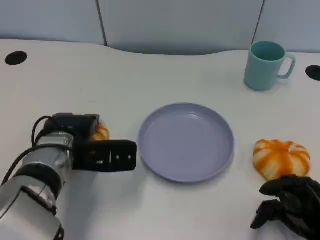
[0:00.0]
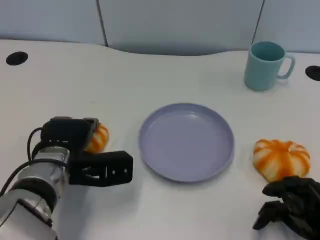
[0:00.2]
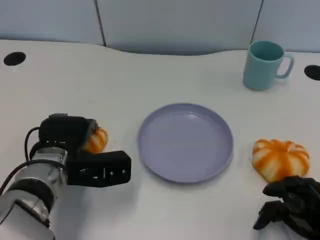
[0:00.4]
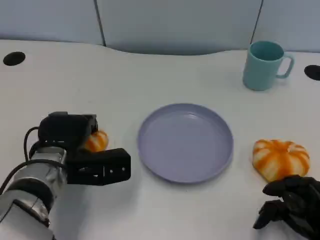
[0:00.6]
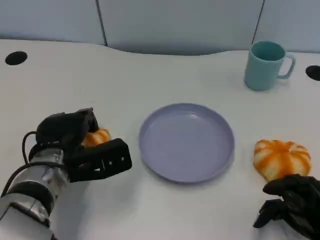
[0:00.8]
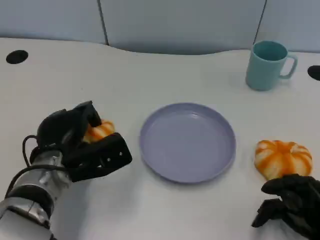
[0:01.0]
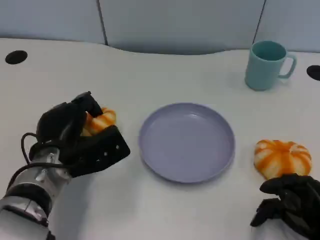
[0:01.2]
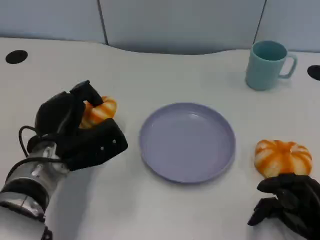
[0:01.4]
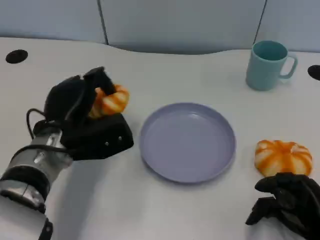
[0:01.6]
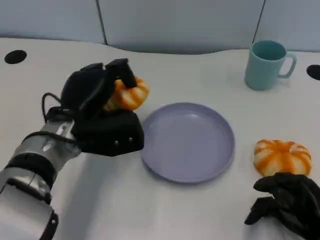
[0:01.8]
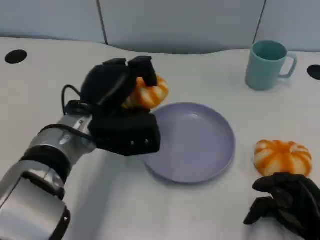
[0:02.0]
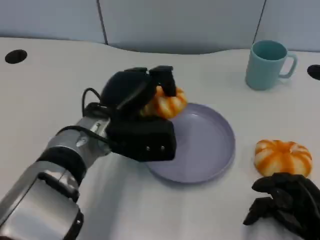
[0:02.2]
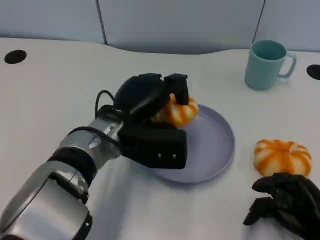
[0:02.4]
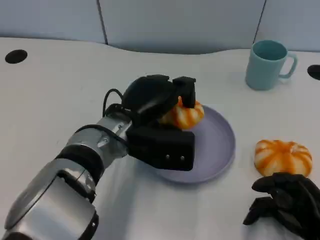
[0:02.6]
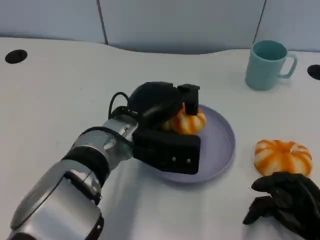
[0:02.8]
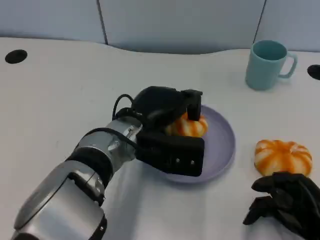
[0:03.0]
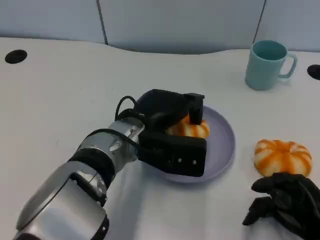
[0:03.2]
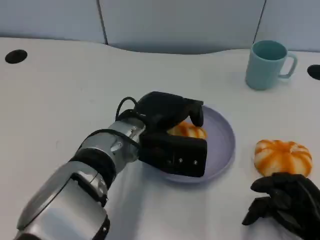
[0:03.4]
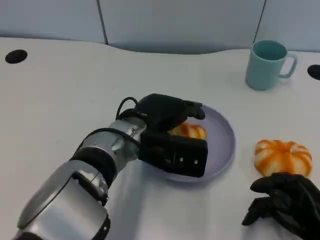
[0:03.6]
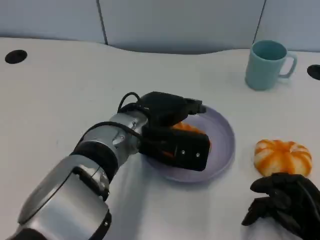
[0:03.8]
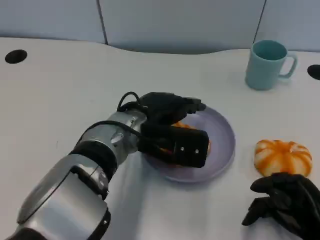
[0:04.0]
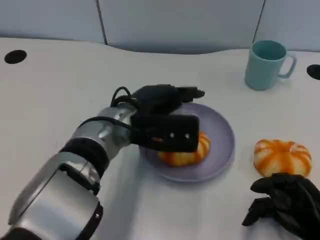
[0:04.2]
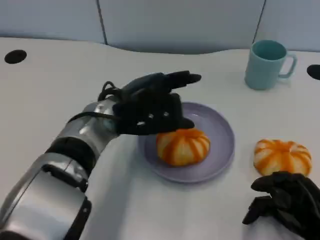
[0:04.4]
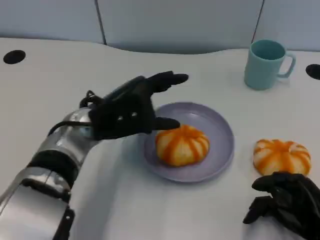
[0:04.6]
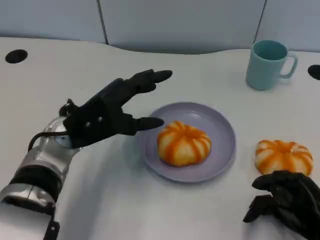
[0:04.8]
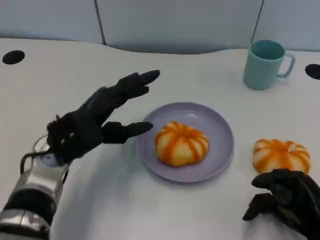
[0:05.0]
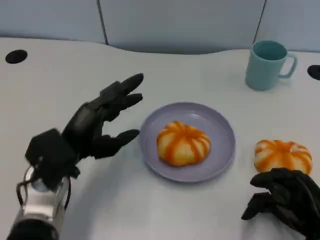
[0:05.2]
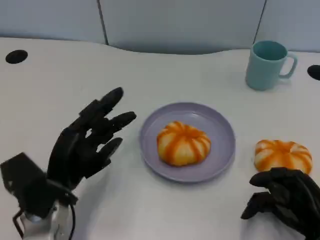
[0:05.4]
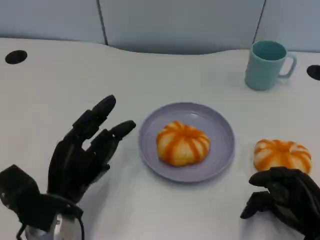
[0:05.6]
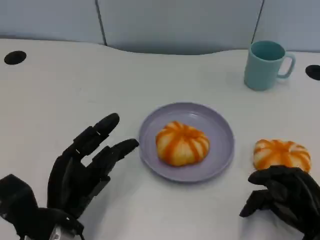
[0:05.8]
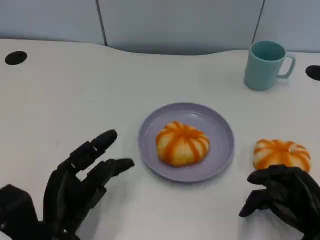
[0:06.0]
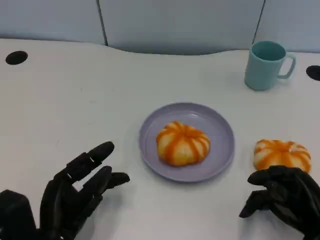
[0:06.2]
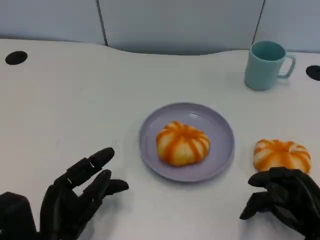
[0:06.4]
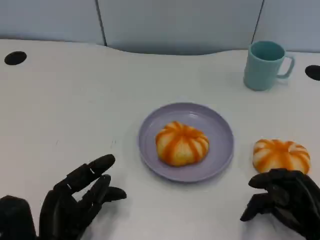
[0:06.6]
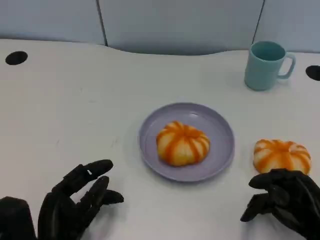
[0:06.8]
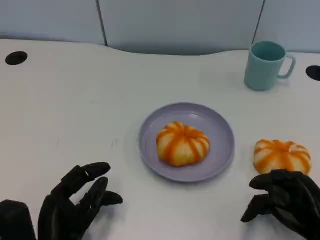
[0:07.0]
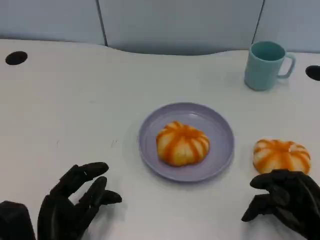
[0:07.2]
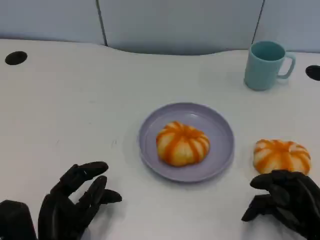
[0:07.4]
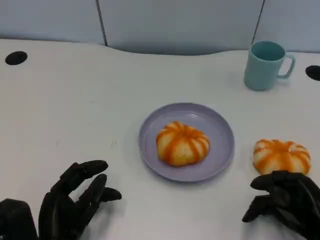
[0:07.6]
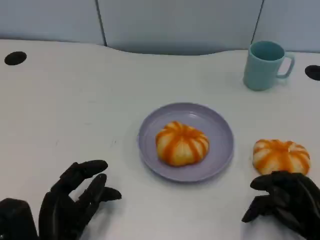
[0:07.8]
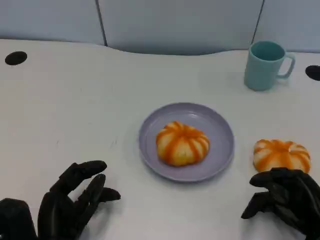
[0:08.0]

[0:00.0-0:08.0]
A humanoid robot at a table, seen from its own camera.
Task of the whole recording: Grasp the bread from the table and place it into the plate.
0:01.6 to 0:03.2: The left hand heads to the right, covering roughly 10 cm.
0:03.2 to 0:04.8: The left hand travels to the left by roughly 10 cm.
0:04.8 to 0:06.4: The left hand travels backward and downward by approximately 15 cm.
0:06.4 to 0:08.0: The two hands keep their place.

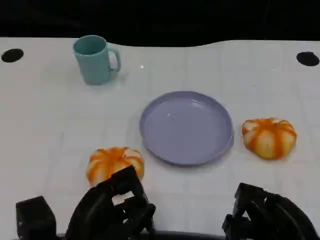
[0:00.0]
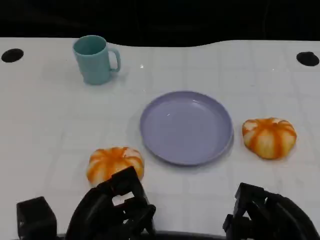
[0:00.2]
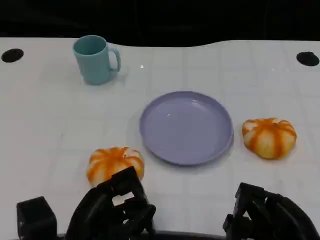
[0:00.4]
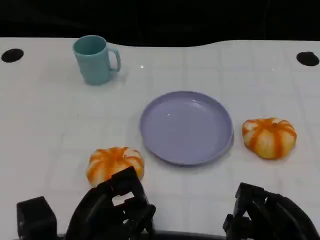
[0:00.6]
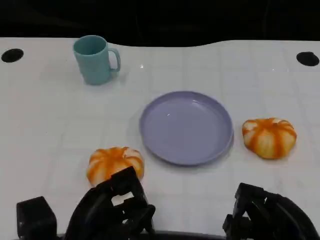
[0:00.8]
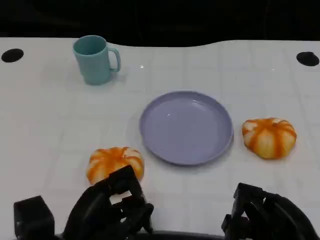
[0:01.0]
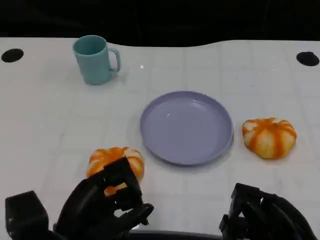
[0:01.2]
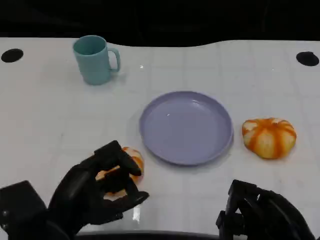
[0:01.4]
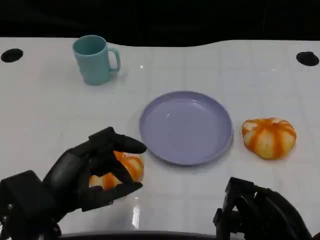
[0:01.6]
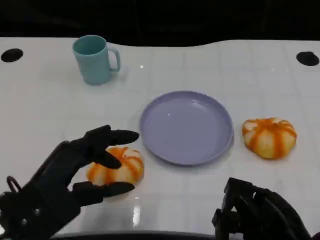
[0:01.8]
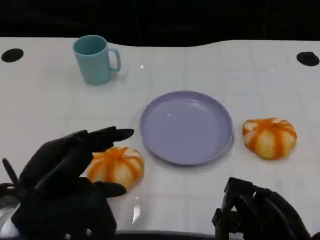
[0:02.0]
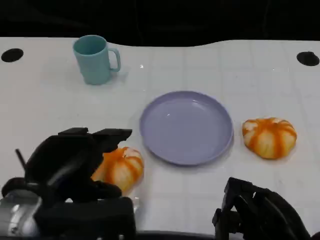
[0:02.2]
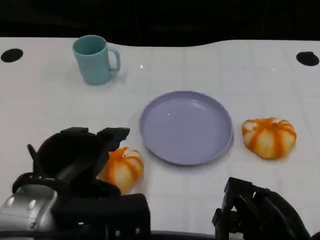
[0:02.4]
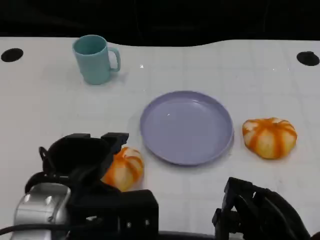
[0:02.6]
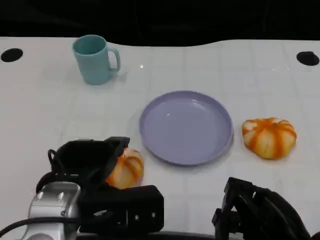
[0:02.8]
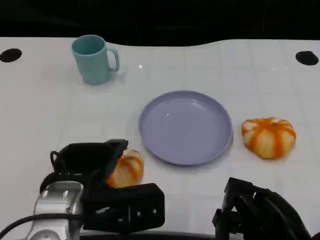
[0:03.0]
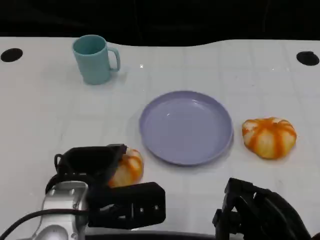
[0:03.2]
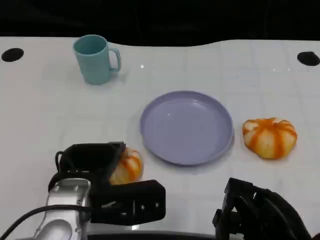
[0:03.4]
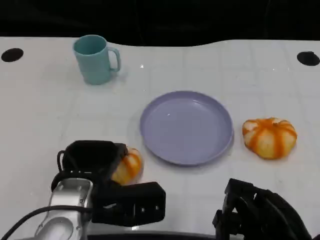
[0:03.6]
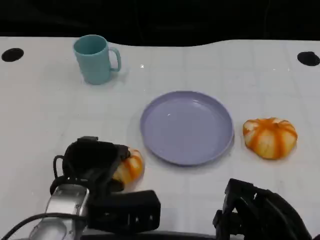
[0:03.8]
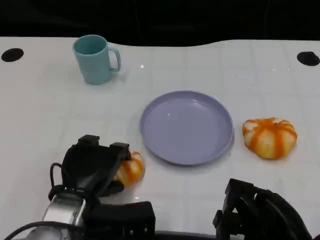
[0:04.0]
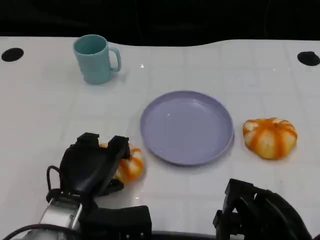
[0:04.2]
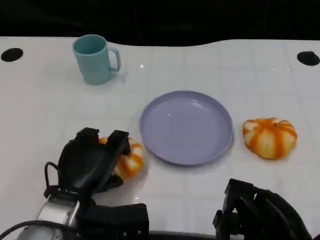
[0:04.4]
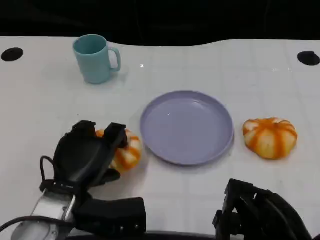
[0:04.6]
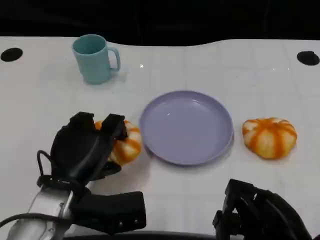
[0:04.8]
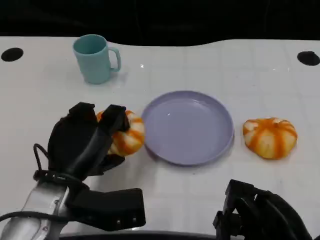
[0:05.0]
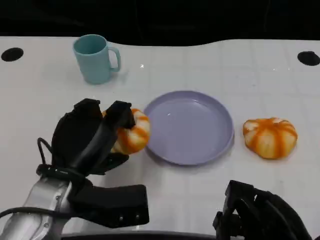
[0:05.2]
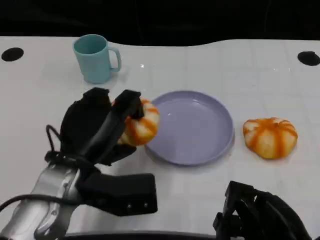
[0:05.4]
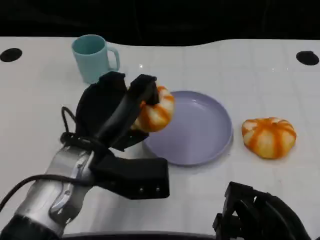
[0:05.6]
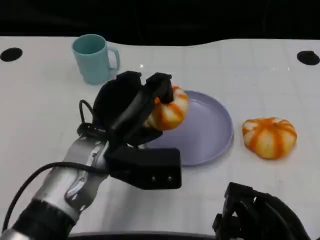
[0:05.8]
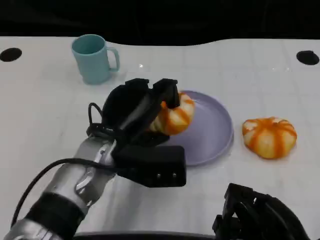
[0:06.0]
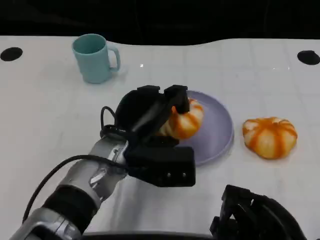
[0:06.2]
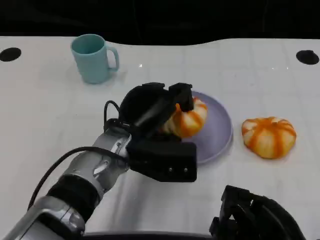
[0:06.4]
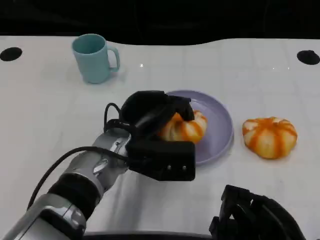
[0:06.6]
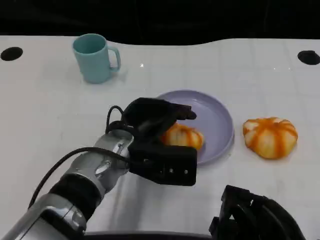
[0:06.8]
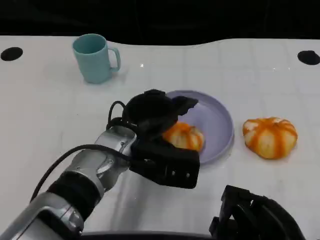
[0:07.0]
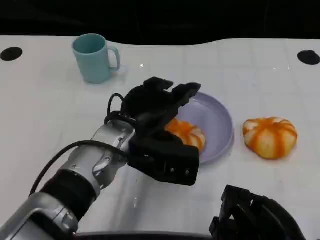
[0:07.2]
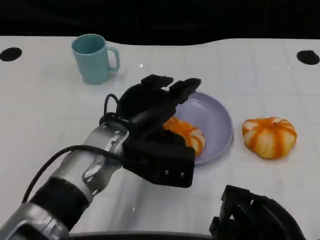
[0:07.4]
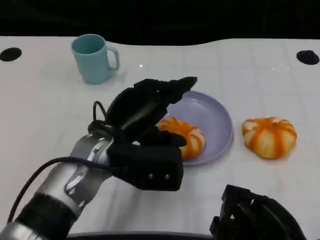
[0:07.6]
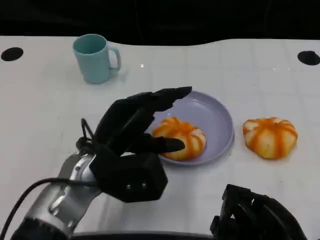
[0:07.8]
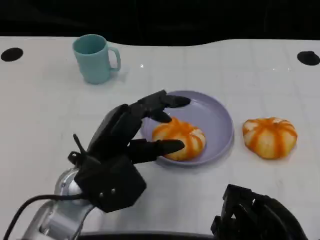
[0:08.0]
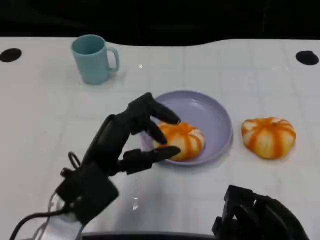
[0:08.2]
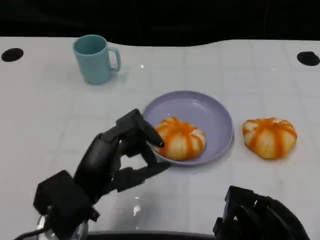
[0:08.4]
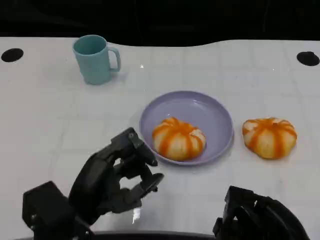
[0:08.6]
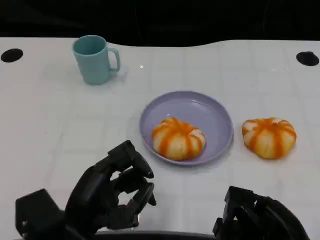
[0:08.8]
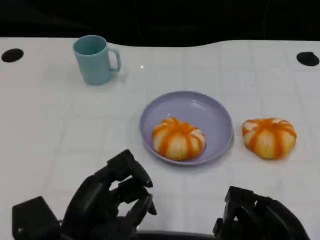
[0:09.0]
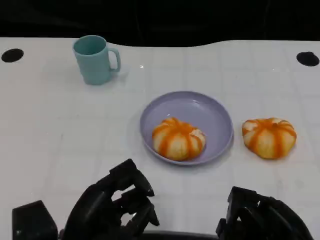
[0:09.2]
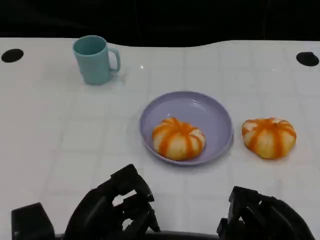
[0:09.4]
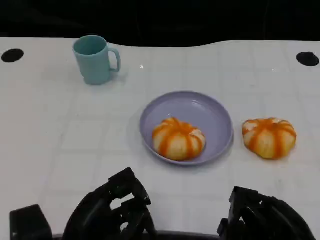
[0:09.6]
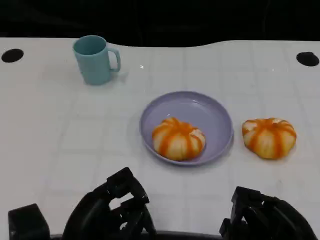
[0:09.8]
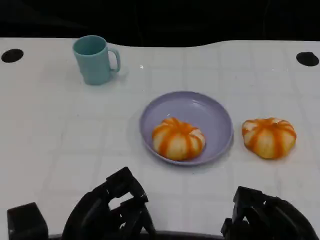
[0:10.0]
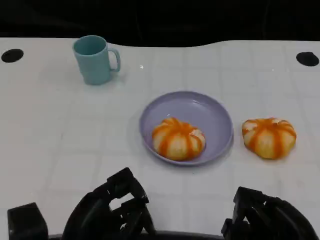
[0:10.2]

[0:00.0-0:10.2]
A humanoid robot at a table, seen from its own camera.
Task of the whole recording: Grasp the bread from the table and place it into the plate.
0:00.0 to 0:01.4: The hands stay close to where they were, moving slightly.
0:01.4 to 0:03.0: The left hand changes place by some 5 cm.
0:03.0 to 0:04.4: The left hand is displaced downward by about 5 cm.
0:04.4 to 0:05.8: The left hand goes approximately 10 cm upward and to the right.
0:07.2 to 0:08.8: The left hand travels backward and to the left by about 15 cm.
0:08.8 to 0:10.2: There are only small adjustments of the hands.

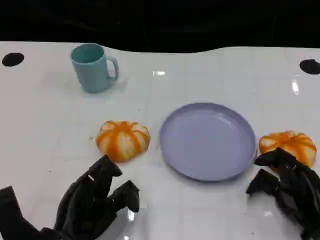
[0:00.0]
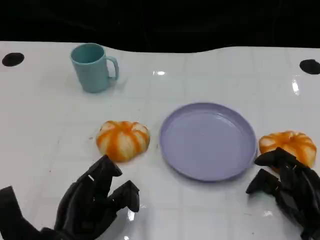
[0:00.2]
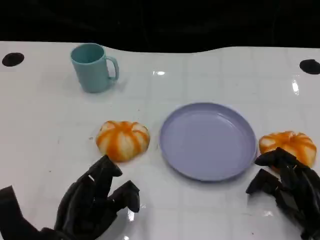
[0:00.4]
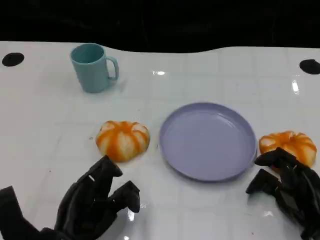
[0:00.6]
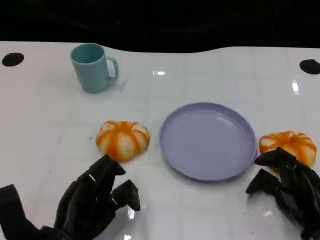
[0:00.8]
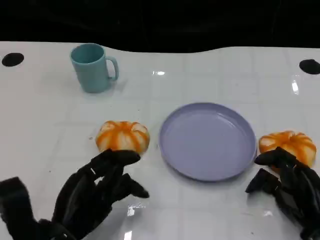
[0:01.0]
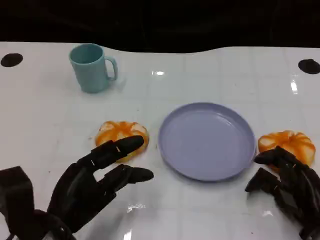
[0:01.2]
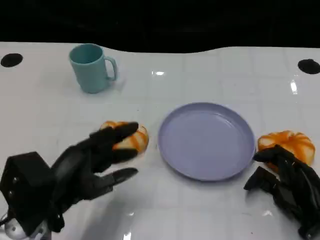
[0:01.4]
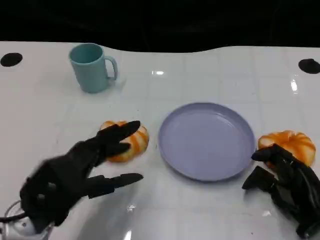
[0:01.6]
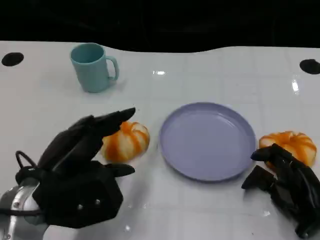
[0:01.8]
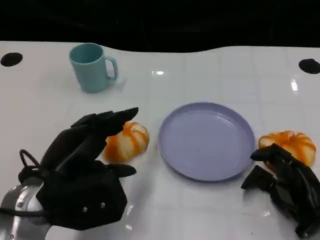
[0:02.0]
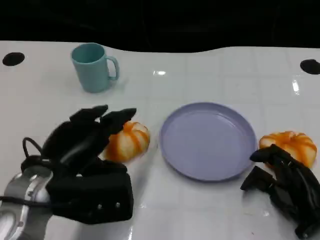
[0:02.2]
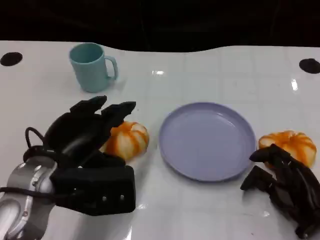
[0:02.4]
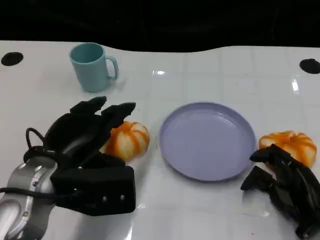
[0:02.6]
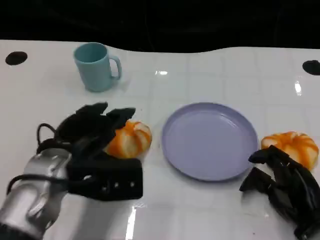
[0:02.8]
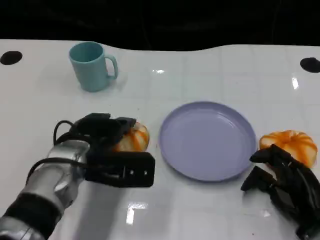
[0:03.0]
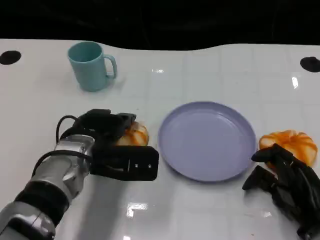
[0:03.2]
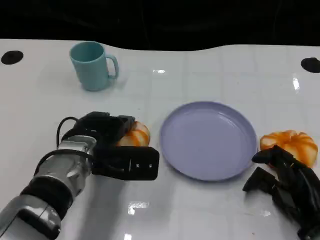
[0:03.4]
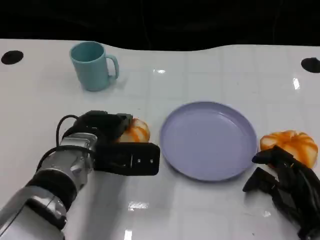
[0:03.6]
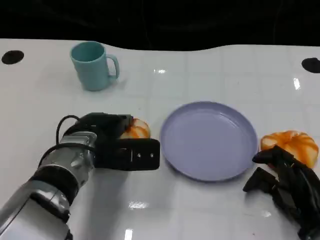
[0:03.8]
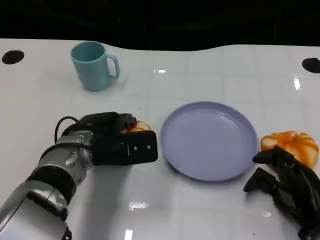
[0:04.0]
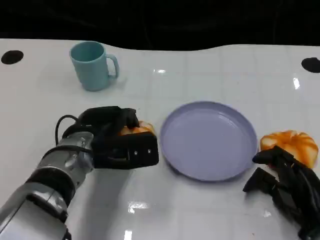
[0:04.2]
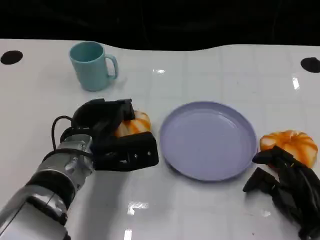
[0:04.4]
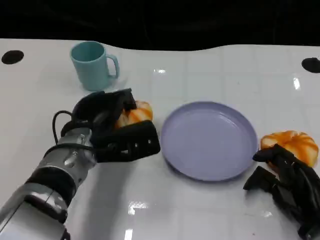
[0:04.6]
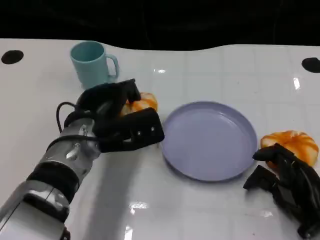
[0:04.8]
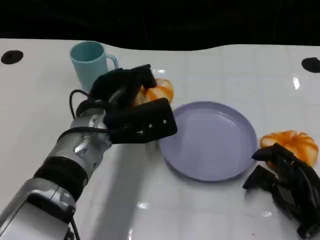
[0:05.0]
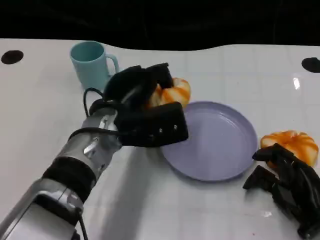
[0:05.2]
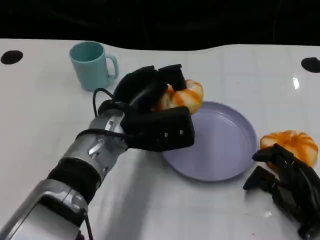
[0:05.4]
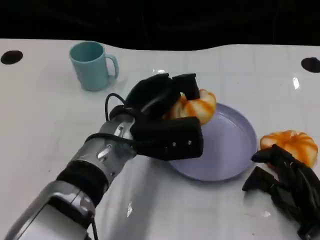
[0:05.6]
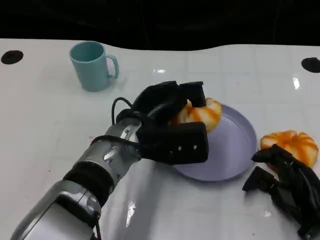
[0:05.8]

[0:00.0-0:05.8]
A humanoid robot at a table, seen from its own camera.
Task of the whole recording: Grasp the bread from the table and place it into the plate.
0:00.0 to 0:01.4: The left hand goes about 5 cm upward.
0:01.4 to 0:02.8: The left hand travels forward by some 5 cm.
0:02.8 to 0:04.4: The left hand moves roughly 5 cm.
0:04.4 to 0:05.8: The left hand moves to the right, about 10 cm.
